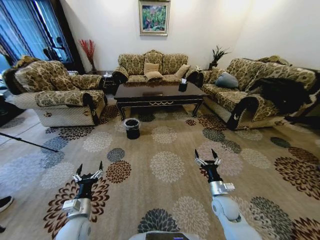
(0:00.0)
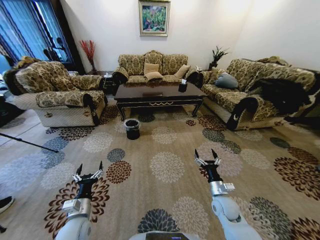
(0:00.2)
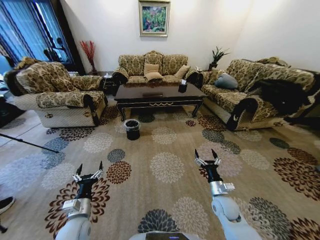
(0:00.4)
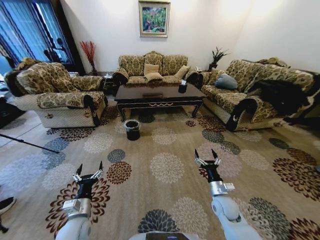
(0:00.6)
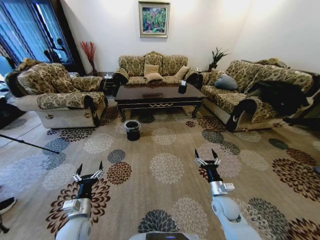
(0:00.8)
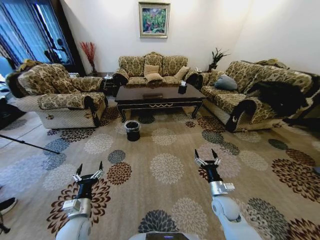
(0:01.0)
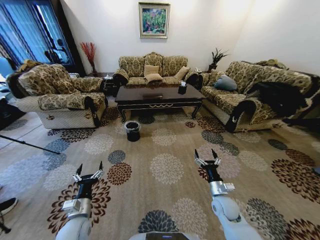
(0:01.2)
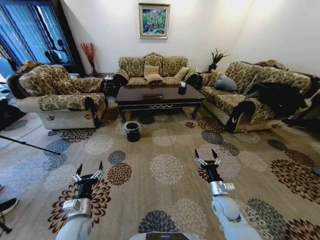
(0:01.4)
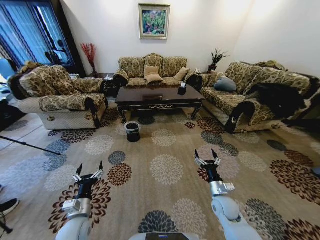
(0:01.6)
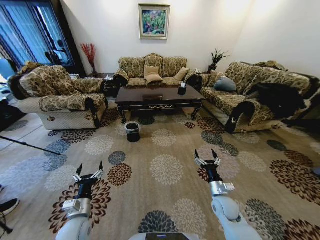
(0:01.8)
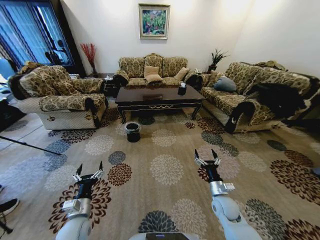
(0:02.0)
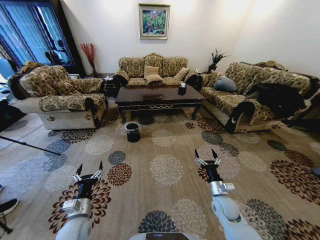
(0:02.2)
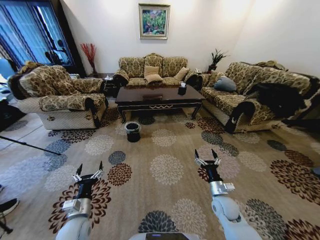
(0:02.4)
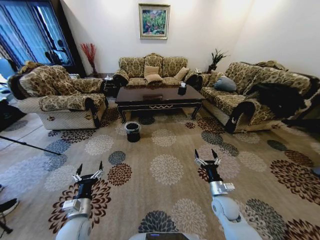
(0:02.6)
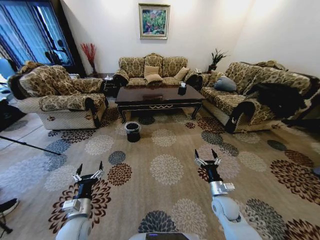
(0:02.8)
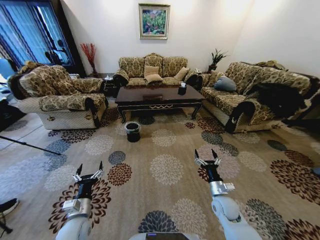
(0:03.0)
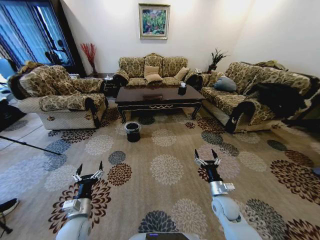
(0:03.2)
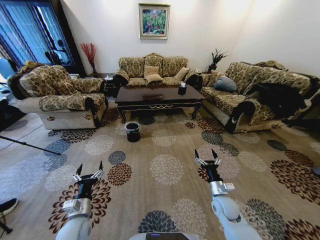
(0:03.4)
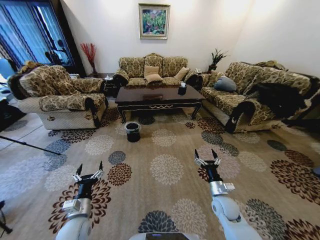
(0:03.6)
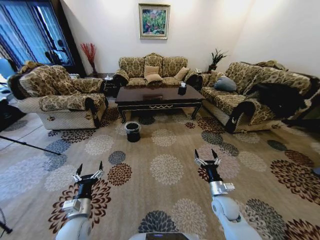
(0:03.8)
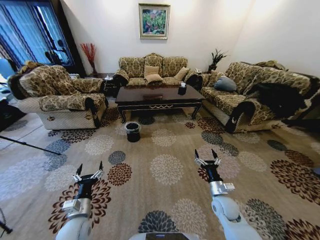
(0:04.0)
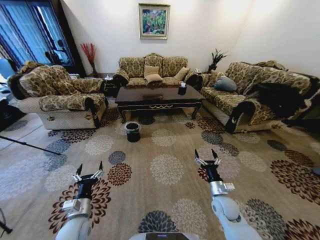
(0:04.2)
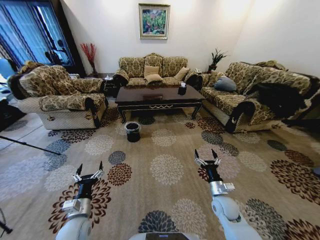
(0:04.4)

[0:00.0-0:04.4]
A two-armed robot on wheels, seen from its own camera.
Task of the whole recording: Move to the front of the table and pick up the trash from the floor, then place it into the trash bin.
0:01.4 to 0:04.4: Neither gripper changes place.
